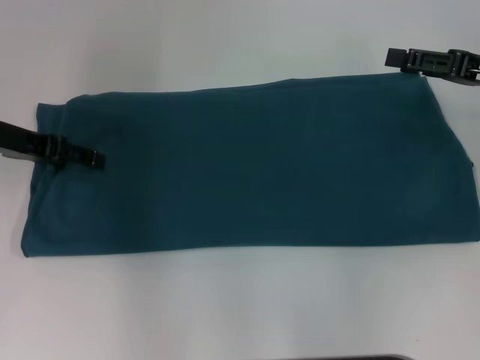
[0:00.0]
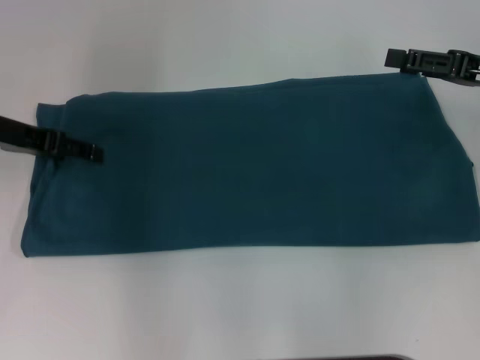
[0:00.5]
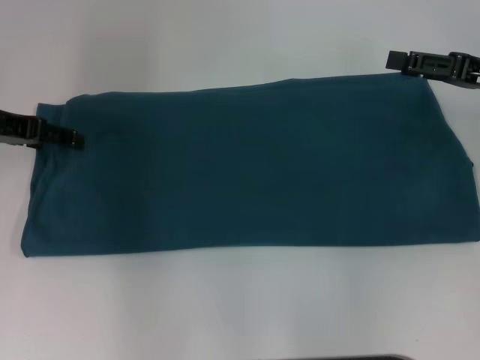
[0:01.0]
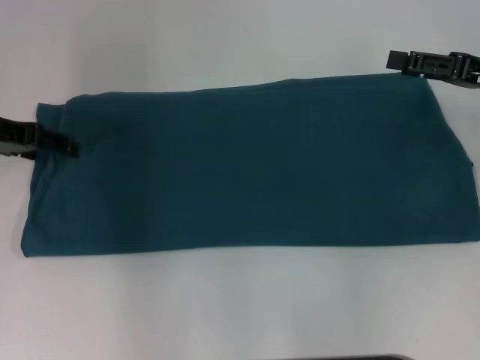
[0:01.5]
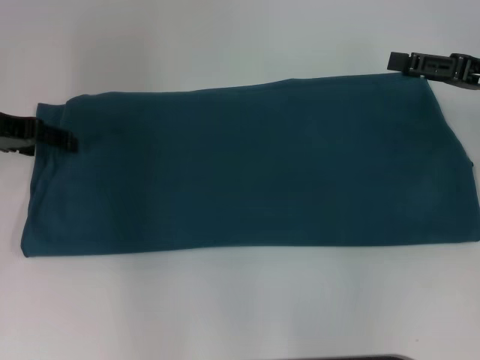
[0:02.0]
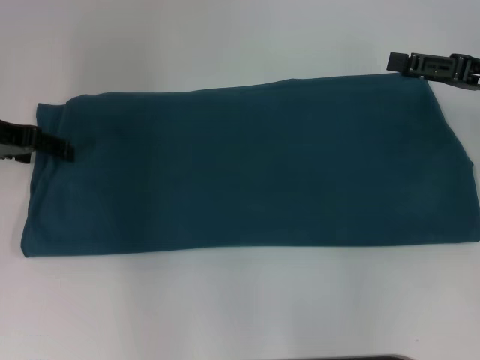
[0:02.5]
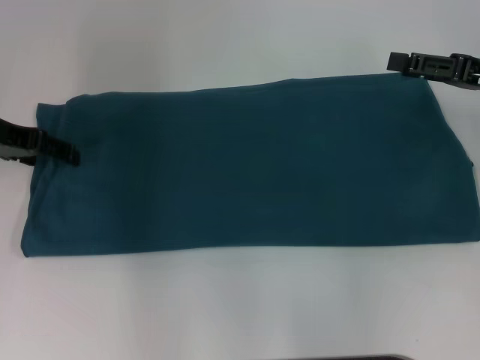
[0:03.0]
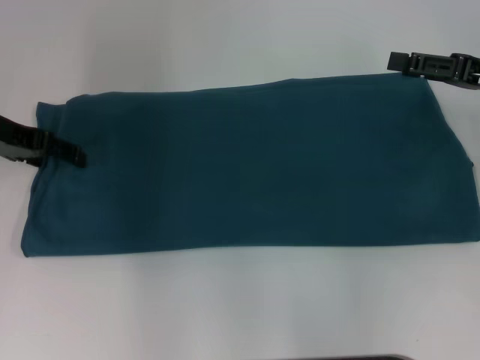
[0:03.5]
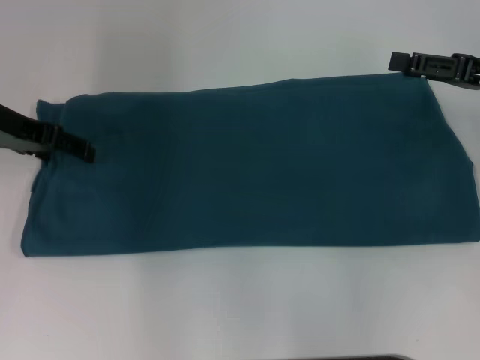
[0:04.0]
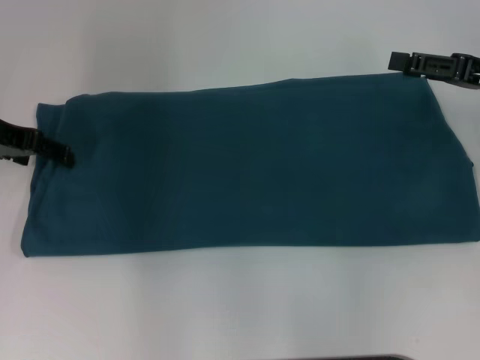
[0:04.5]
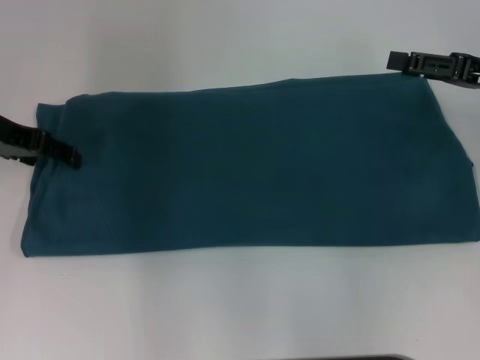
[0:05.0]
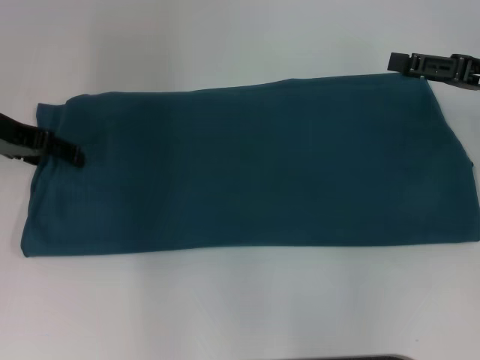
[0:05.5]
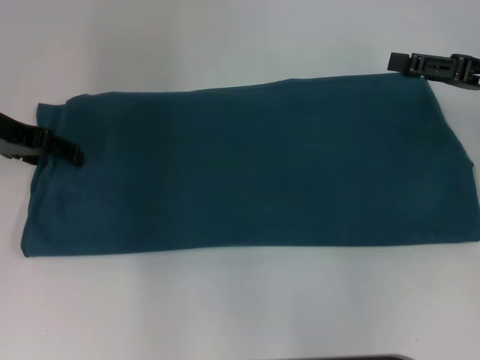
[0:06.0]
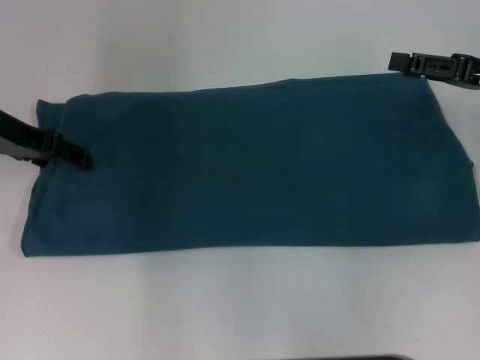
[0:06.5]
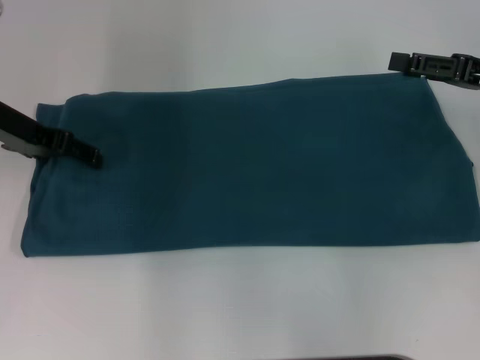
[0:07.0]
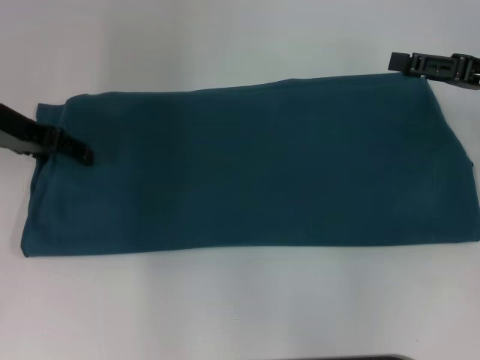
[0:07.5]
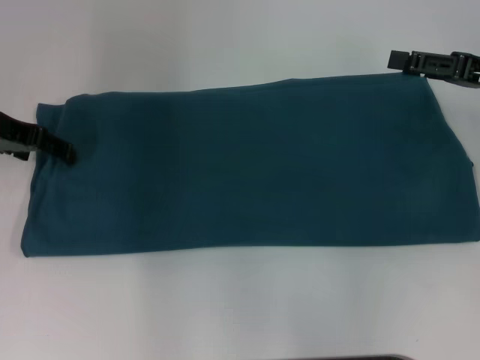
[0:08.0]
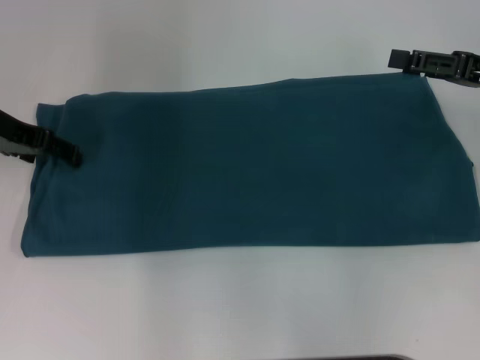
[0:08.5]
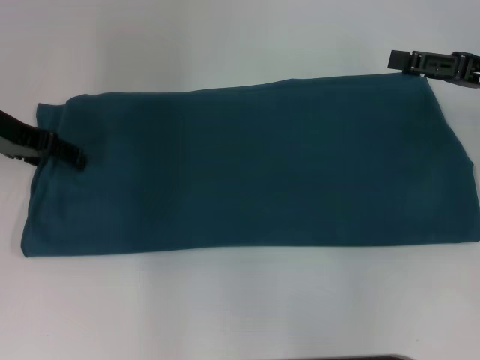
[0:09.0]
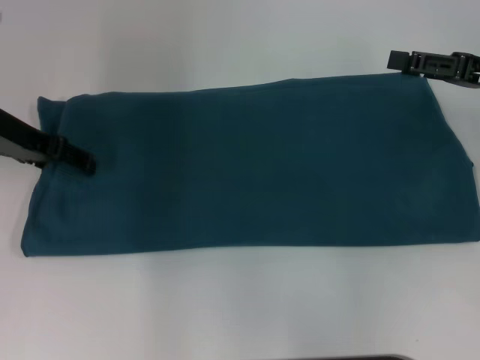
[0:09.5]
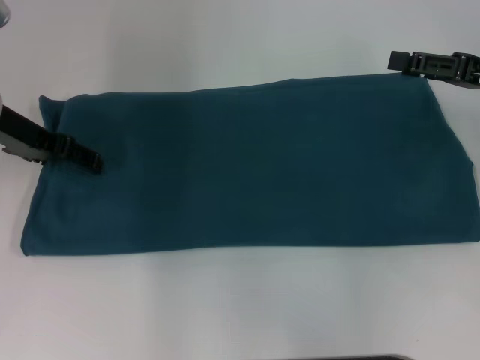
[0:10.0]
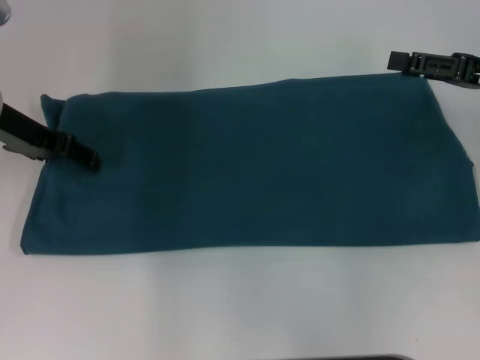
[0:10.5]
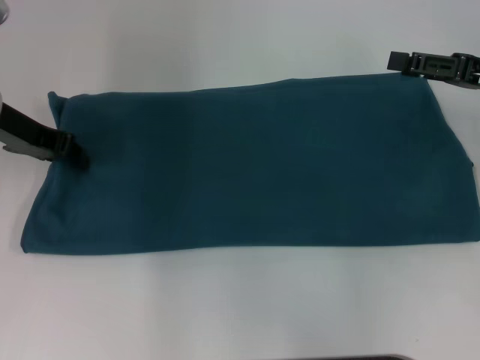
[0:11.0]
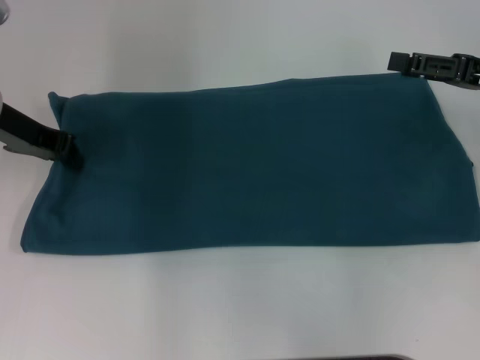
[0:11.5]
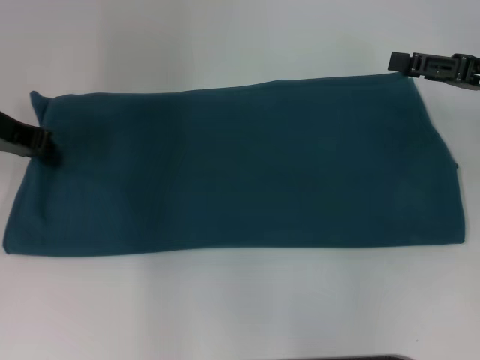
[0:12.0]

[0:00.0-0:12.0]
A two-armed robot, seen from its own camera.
0:00.0 to 0:02.0: The grippers move only a little.
0:04.0 to 0:06.0: There are only small adjustments of the grippers.
0:08.0 to 0:10.0: The grippers move only a little.
0:10.0 to 0:12.0: The left gripper closes.

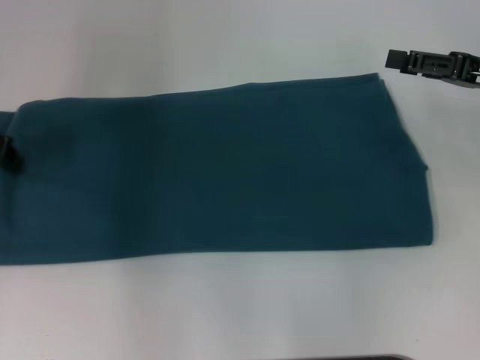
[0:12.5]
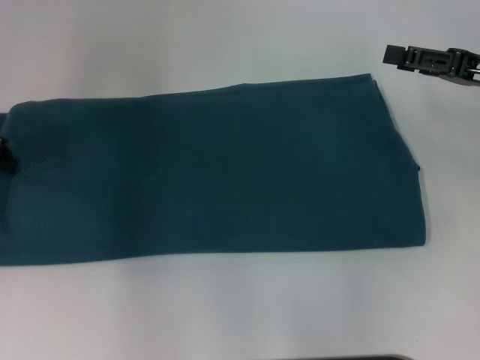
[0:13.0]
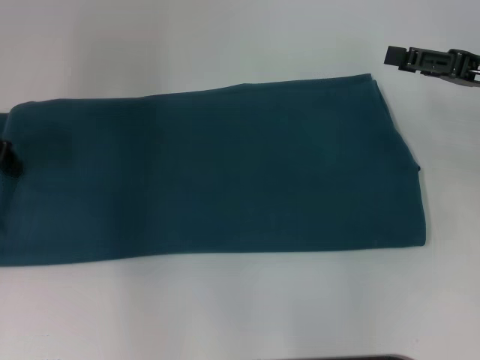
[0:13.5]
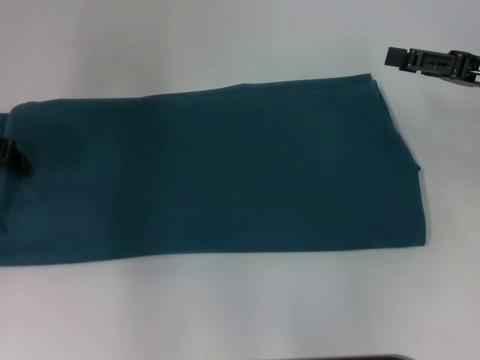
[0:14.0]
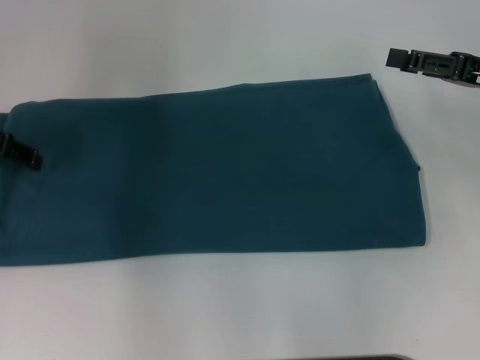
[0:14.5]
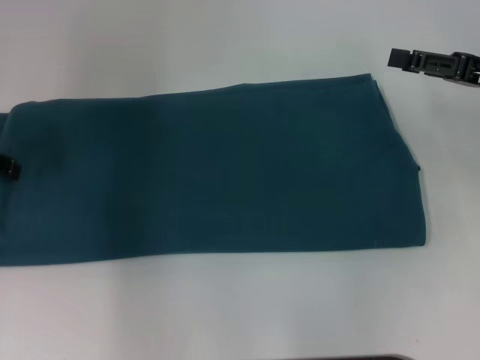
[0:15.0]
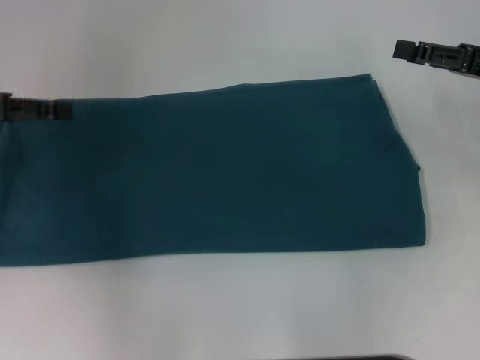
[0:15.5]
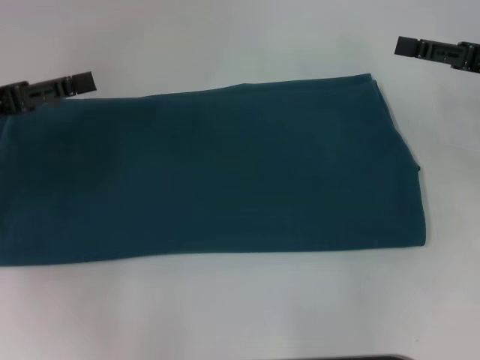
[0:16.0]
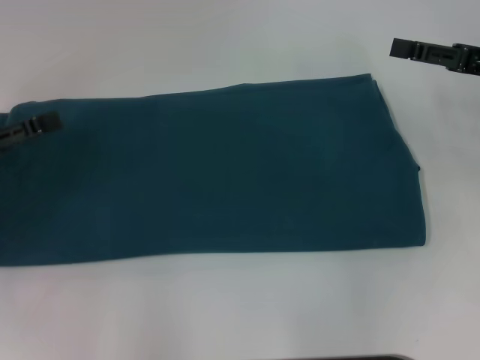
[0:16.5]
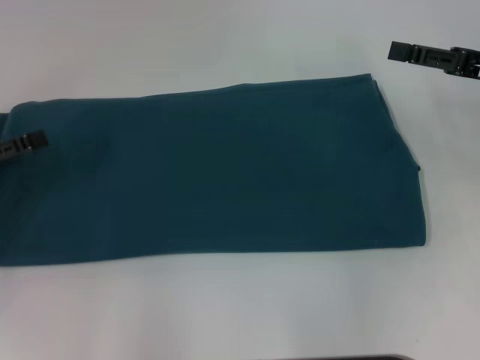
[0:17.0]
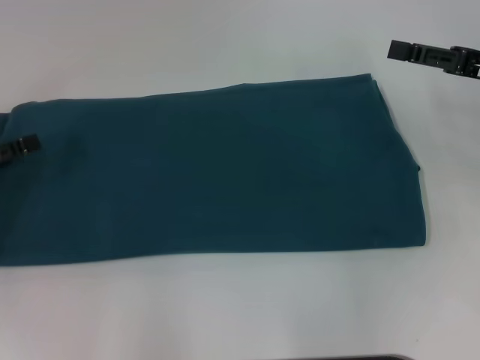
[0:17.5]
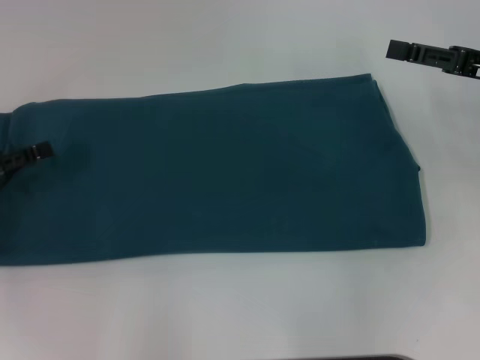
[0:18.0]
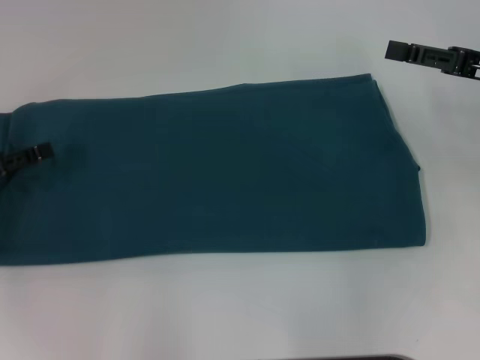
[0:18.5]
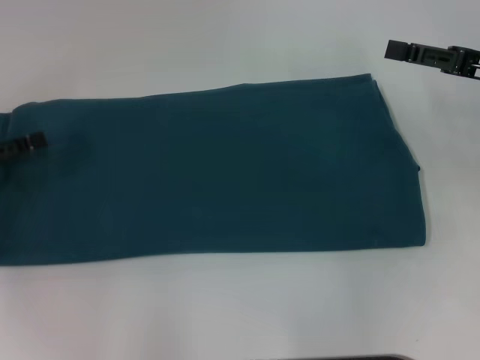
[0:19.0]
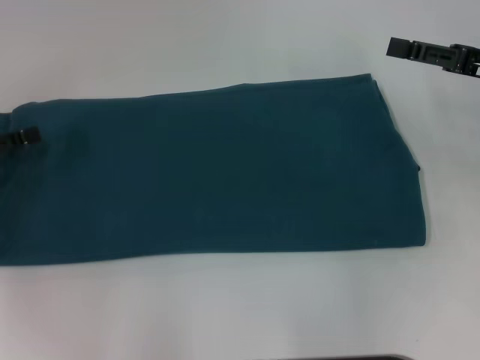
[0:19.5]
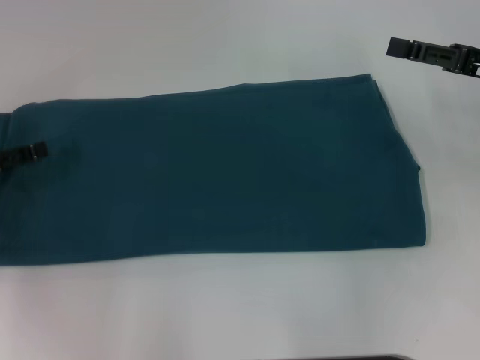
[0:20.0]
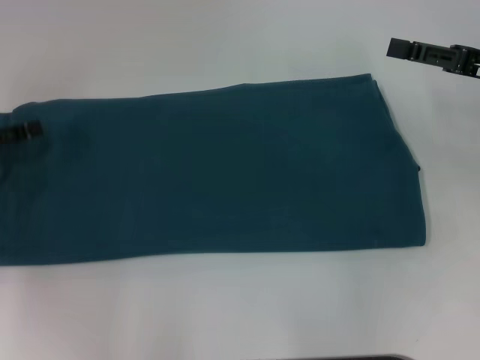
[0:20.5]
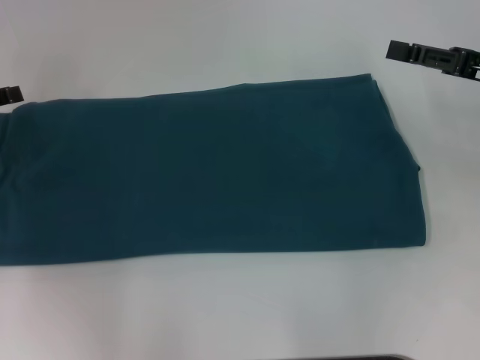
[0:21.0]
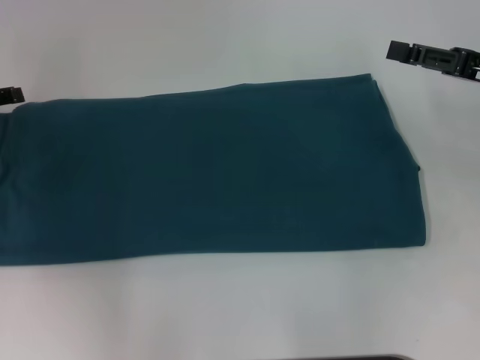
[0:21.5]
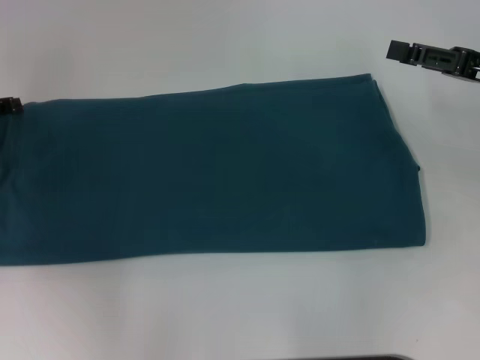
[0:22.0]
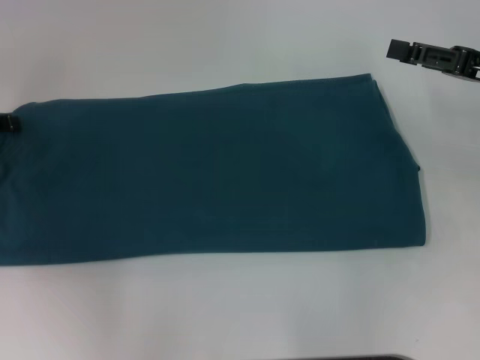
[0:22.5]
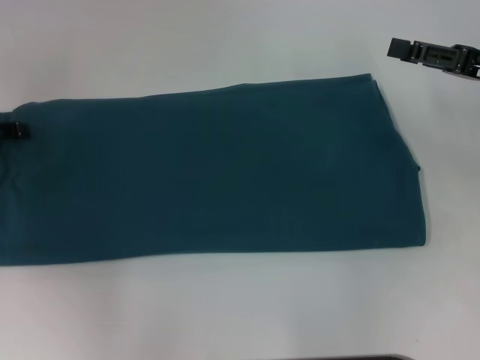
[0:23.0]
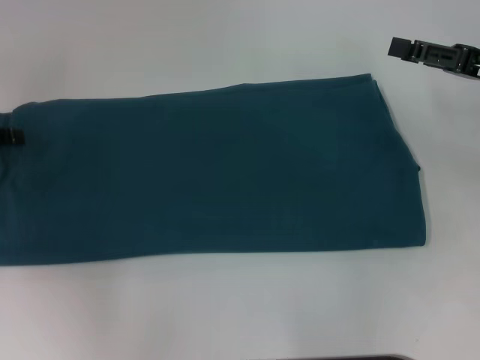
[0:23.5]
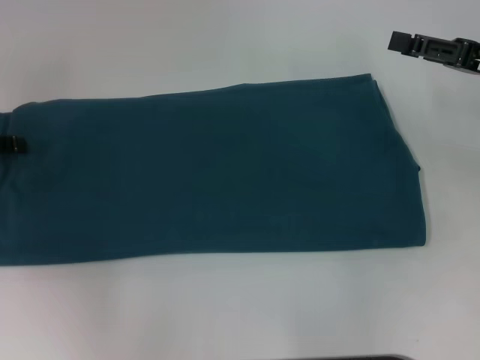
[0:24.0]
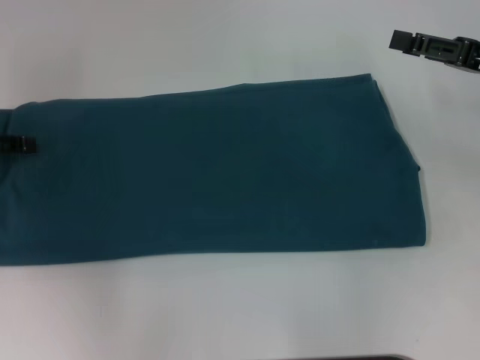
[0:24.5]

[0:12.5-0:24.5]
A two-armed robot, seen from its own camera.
0:14.5 to 0:16.5: The left gripper moves backward and downward, about 10 cm.
0:16.5 to 0:18.5: The grippers stay close to where they were, moving slightly.
0:22.5 to 0:24.5: The grippers make only small movements.

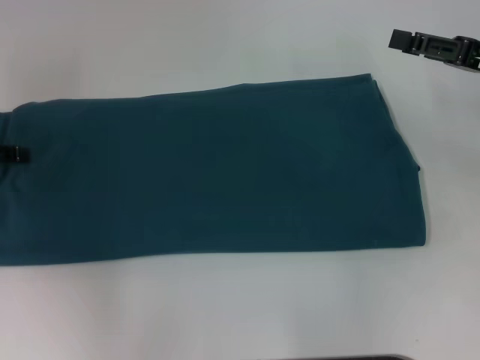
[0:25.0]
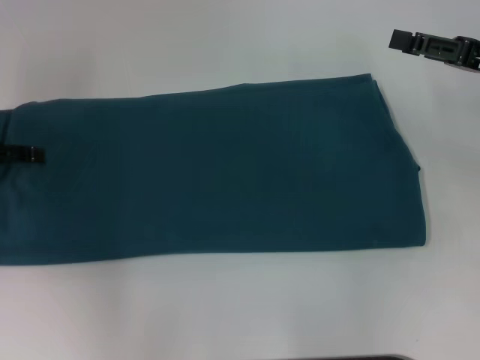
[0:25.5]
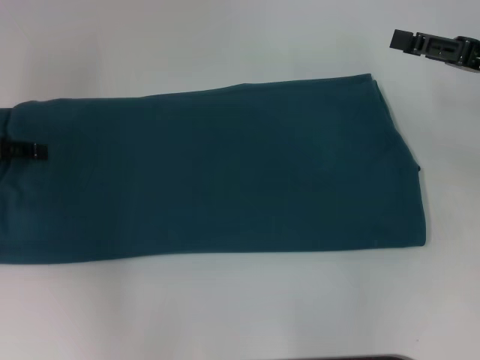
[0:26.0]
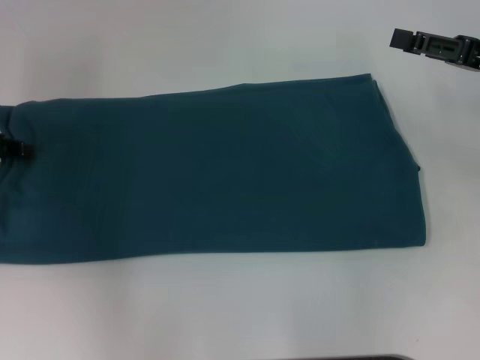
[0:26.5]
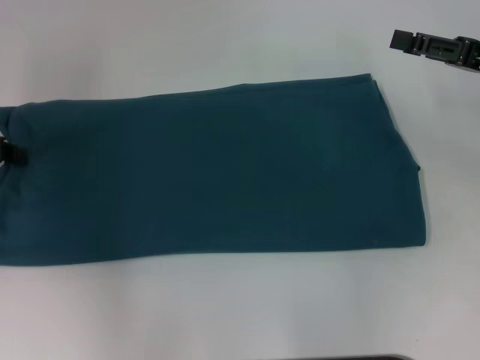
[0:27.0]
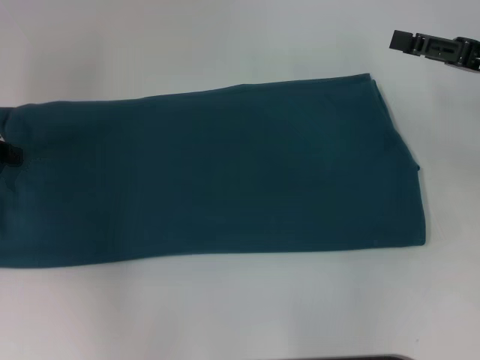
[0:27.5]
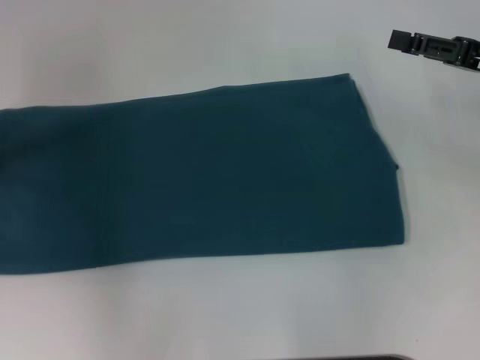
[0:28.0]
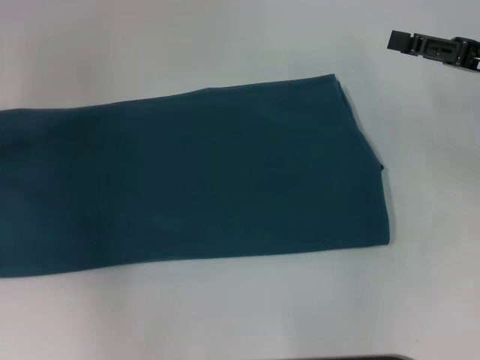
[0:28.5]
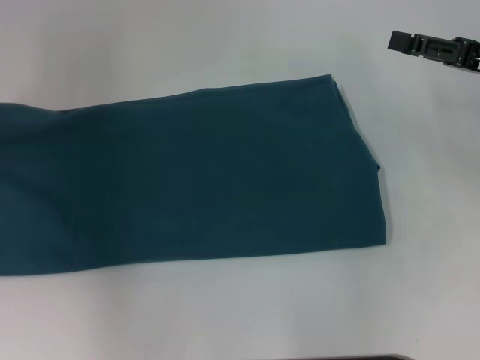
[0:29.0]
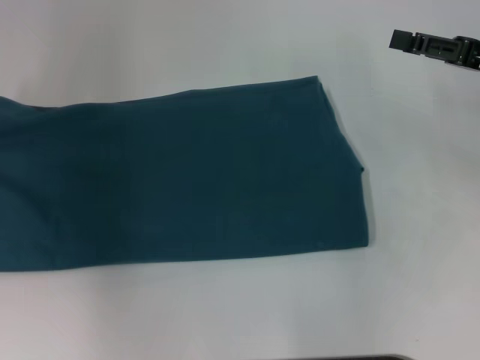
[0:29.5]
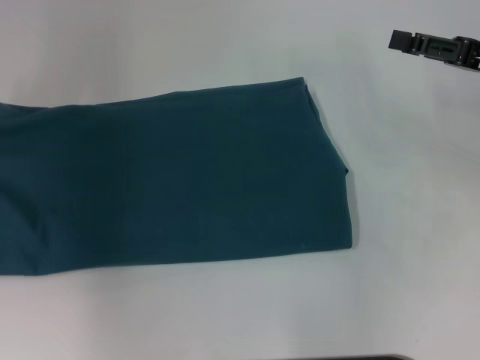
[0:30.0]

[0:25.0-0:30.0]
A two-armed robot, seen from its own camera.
0:25.0 to 0:27.5: The left gripper closes up.
0:27.5 to 0:30.0: The left gripper heads upward, covering approximately 10 cm.
